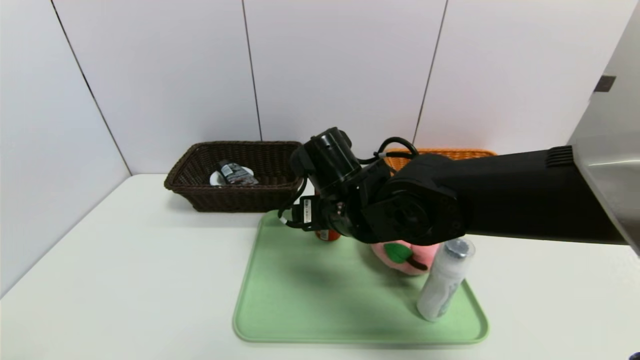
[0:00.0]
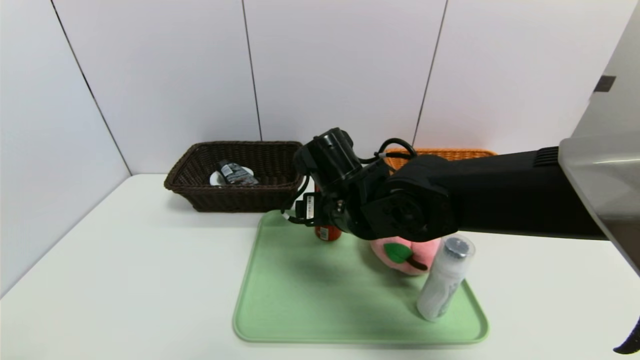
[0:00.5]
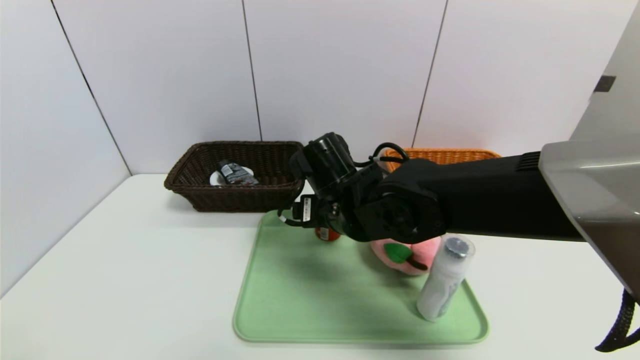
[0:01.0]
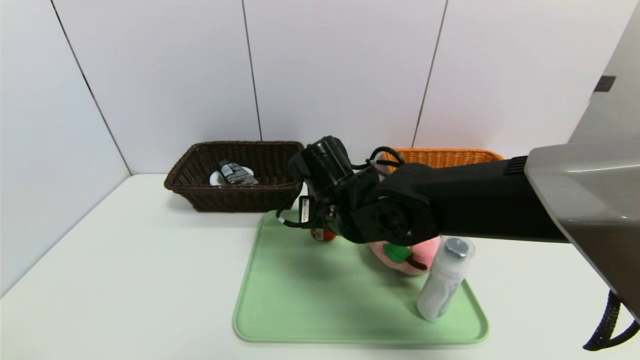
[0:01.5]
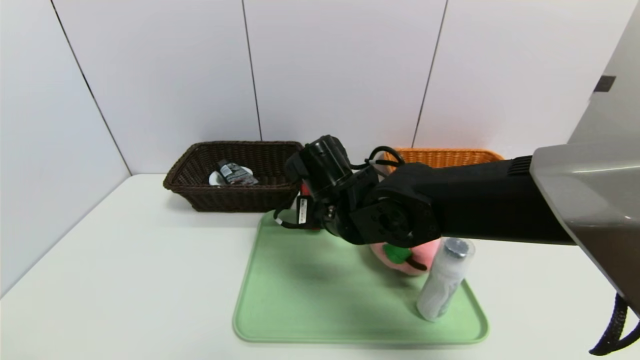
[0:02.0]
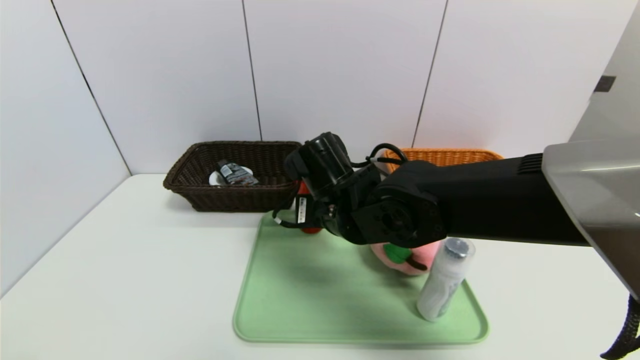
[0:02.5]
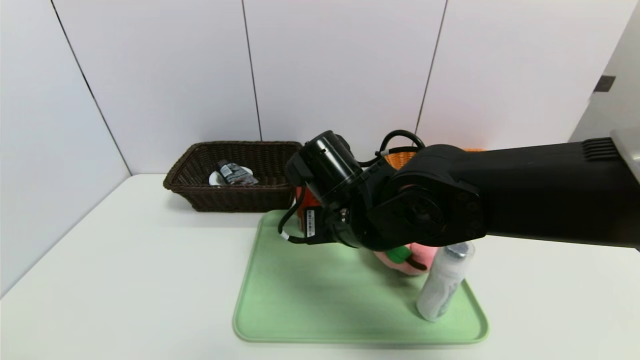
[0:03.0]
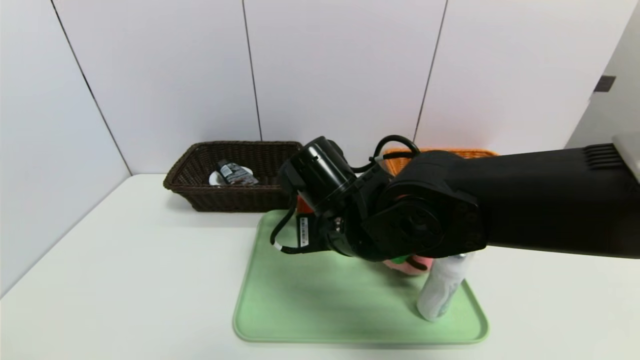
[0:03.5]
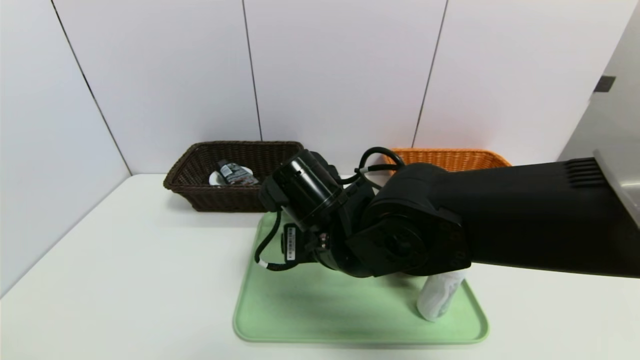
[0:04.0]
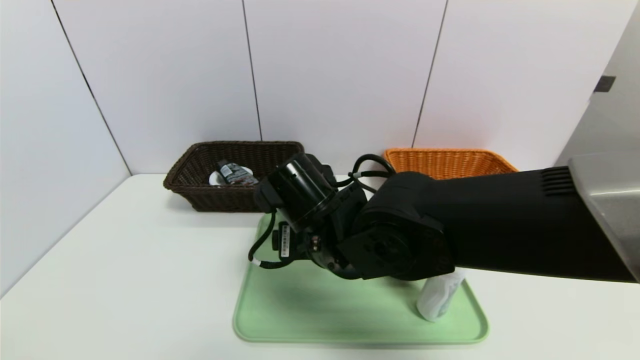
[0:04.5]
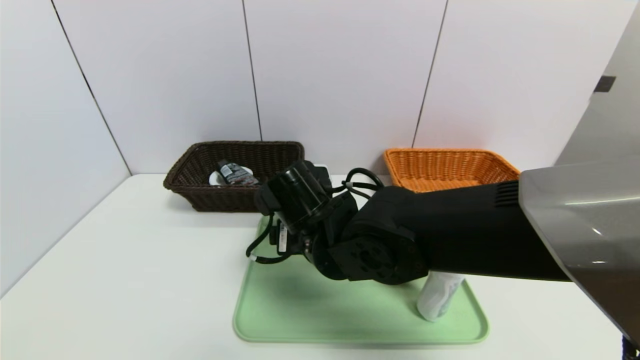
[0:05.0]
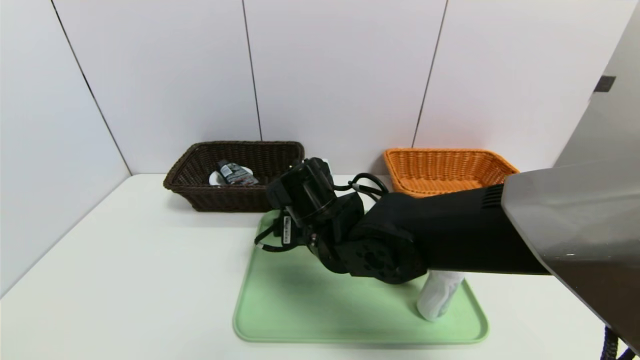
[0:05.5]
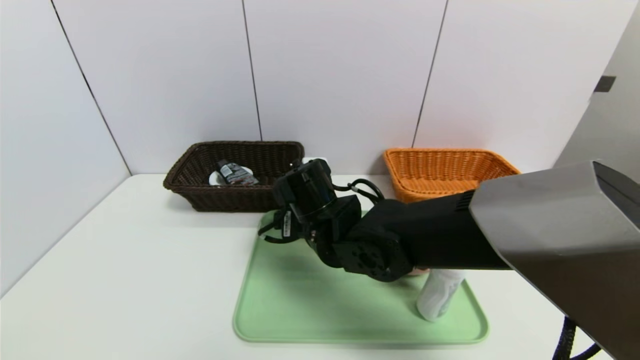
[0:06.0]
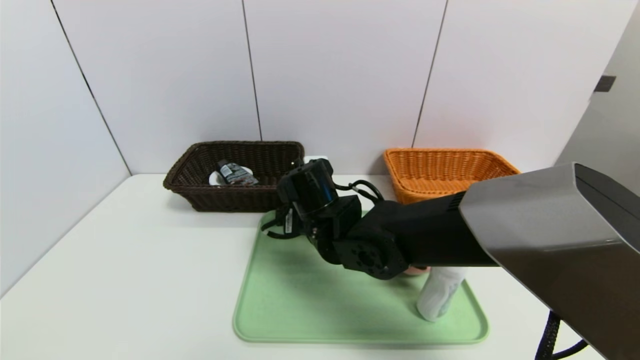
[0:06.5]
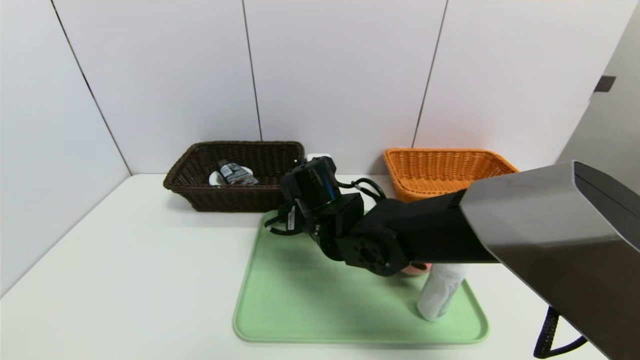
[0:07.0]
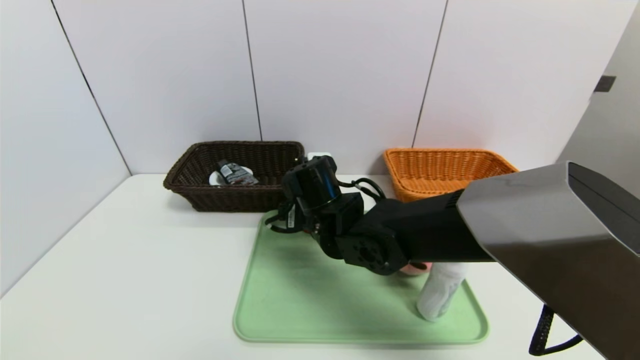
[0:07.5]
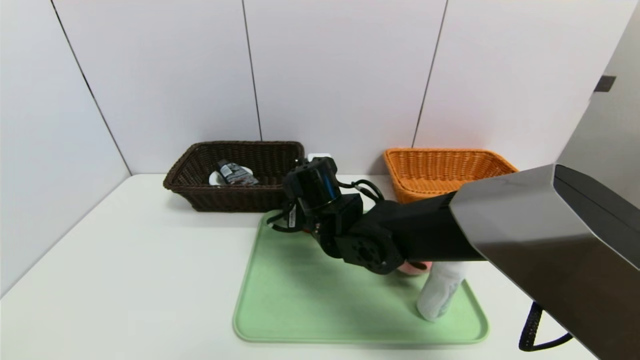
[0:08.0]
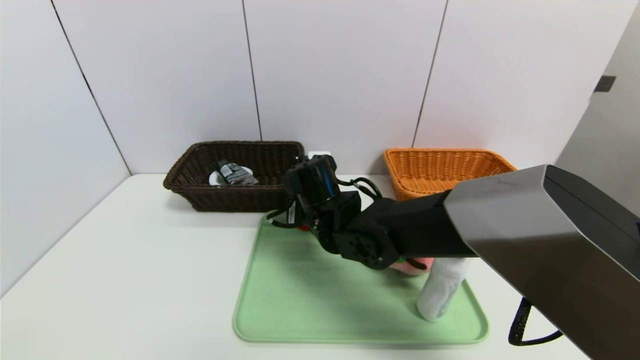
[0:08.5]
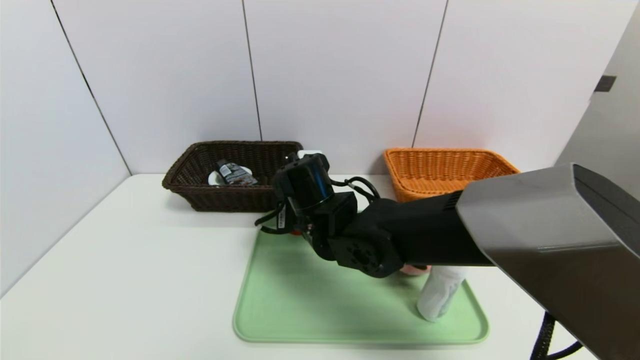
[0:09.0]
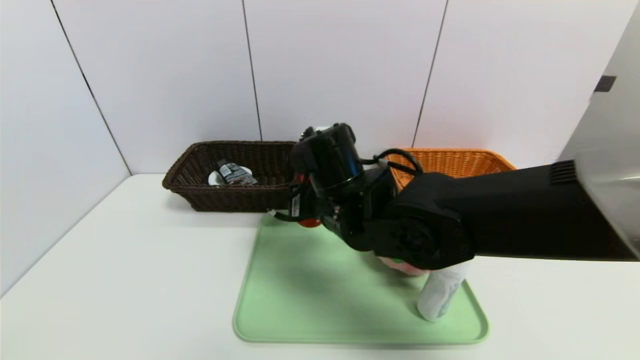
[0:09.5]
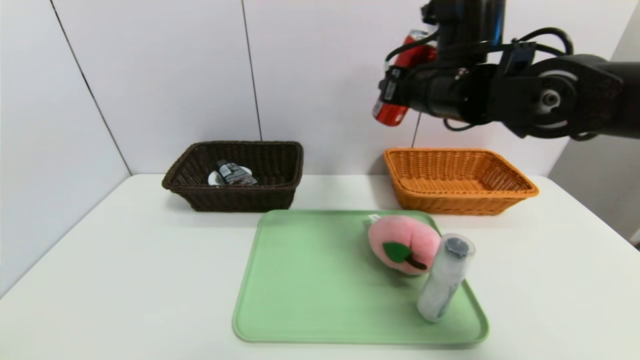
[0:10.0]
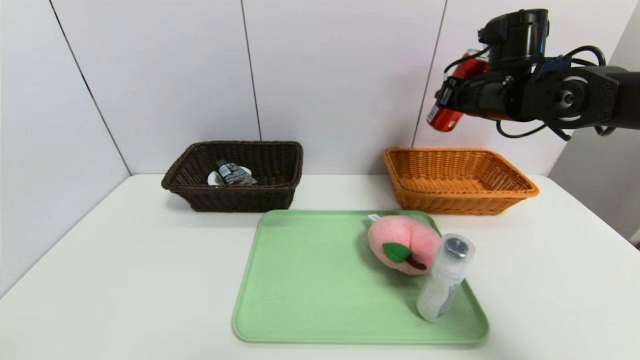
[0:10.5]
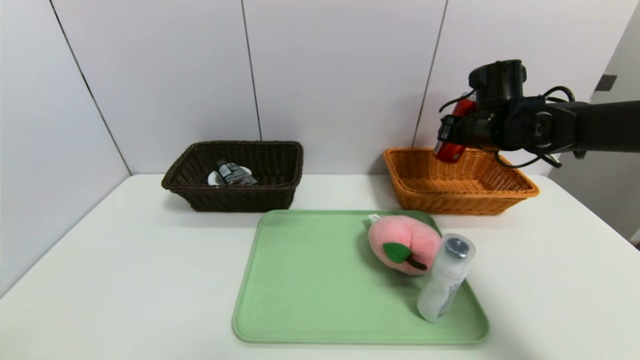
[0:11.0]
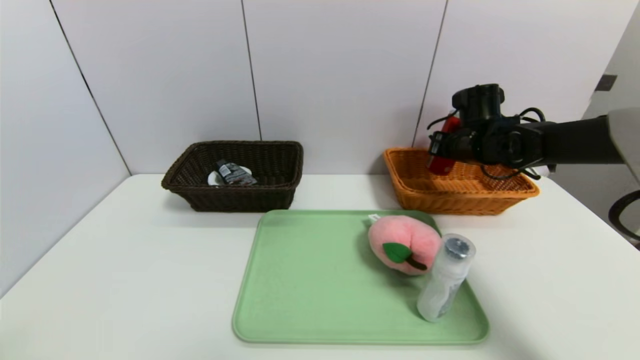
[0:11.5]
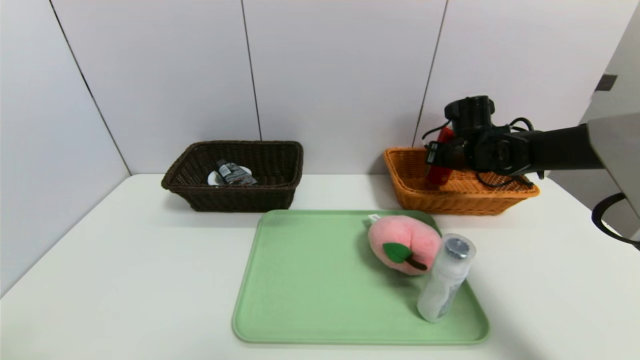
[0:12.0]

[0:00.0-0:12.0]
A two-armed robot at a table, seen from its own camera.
Task of the whole recording: place the food in the right basket with the right gripper, and place the non food items in the left basket with the left gripper.
0:00.0 to 0:02.0: The right gripper closes.
0:02.0 to 0:04.0: The right gripper travels backward by roughly 5 cm, and opens its fingers.
0:04.0 to 0:06.0: The right gripper travels forward by approximately 5 cm.
0:06.0 to 0:08.0: The grippers move only a little.
0:08.0 to 0:10.0: The right gripper travels upward and to the right by some 25 cm, and closes its fingers.
0:10.0 to 0:12.0: The right gripper goes some 20 cm downward, to the right and forward.

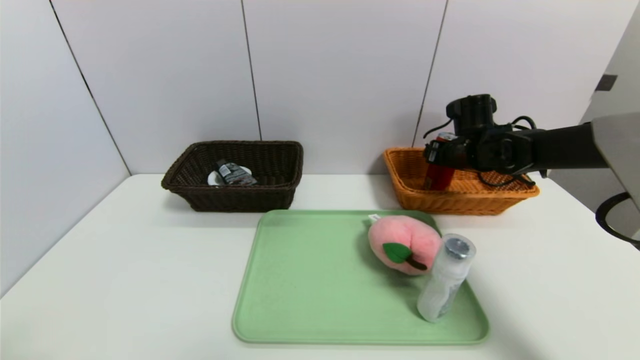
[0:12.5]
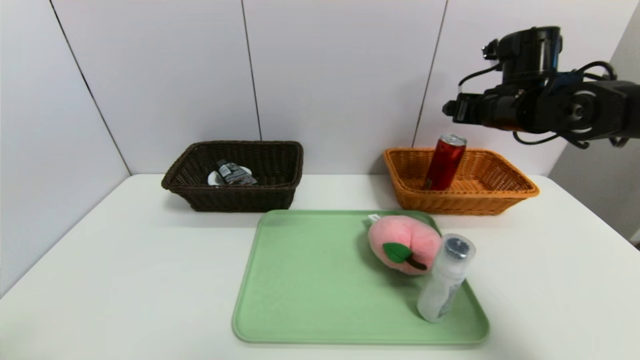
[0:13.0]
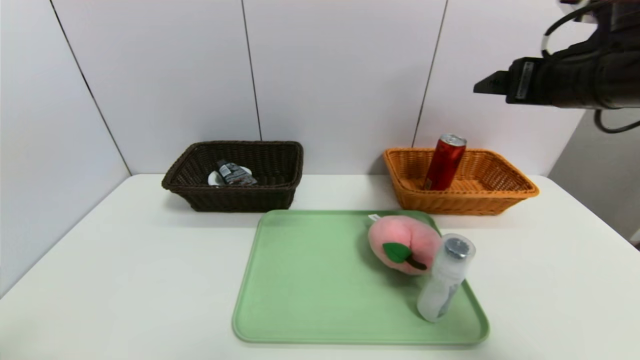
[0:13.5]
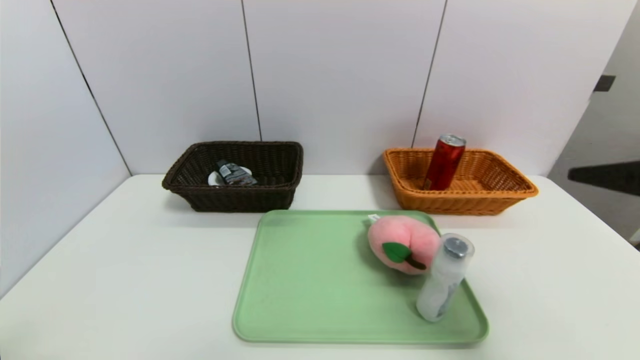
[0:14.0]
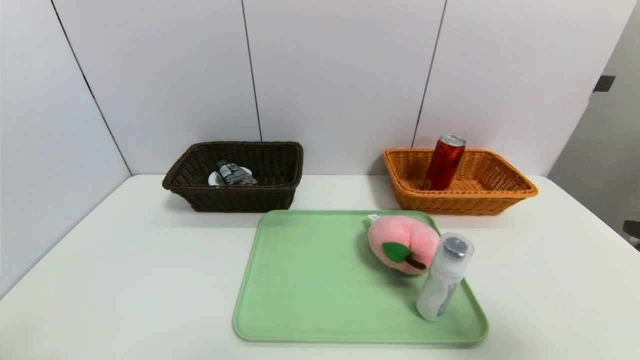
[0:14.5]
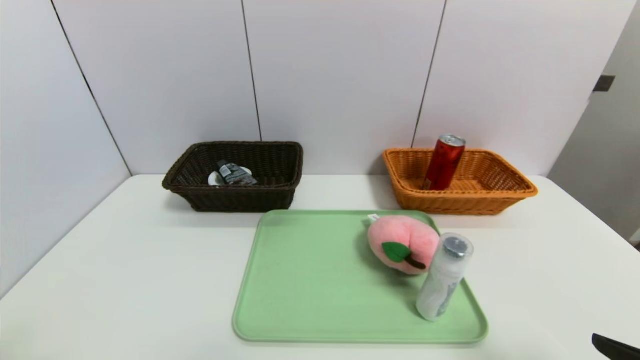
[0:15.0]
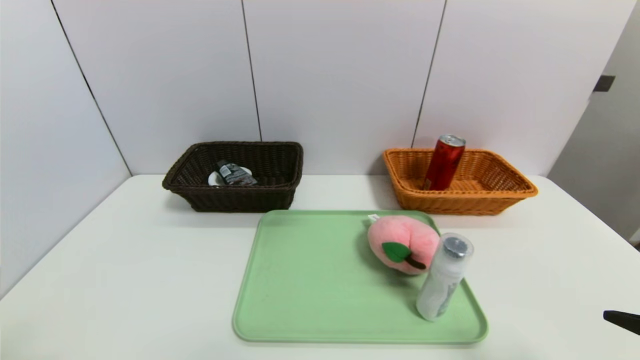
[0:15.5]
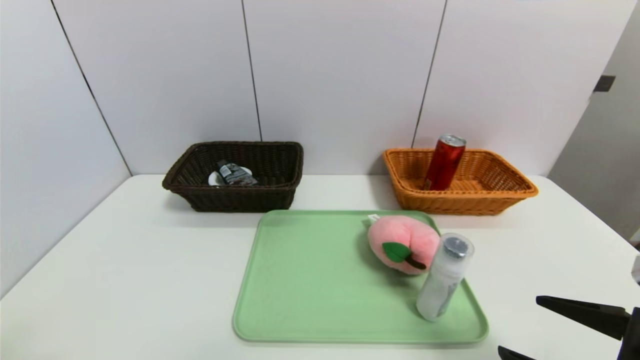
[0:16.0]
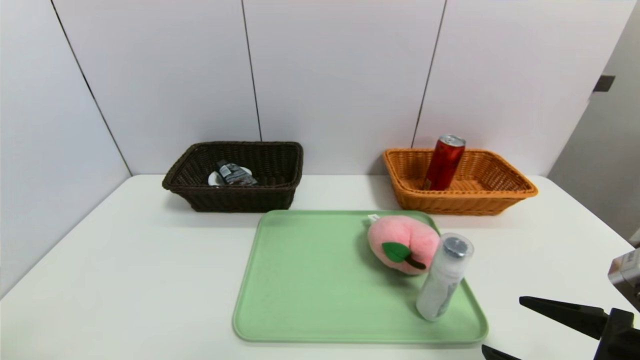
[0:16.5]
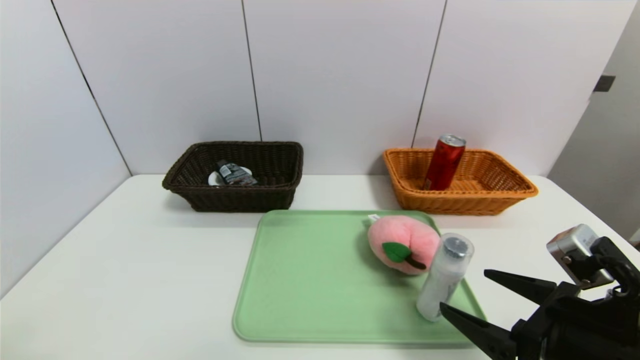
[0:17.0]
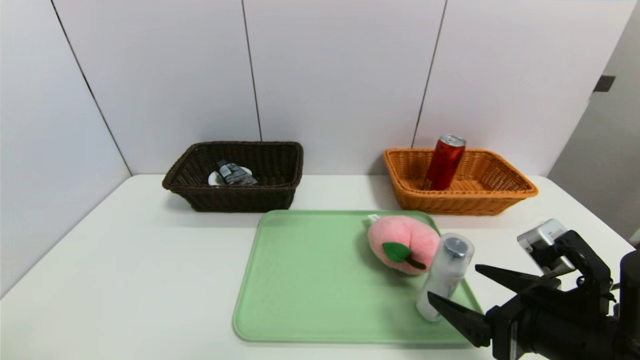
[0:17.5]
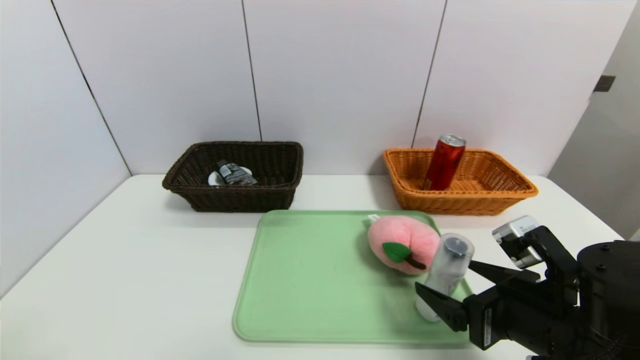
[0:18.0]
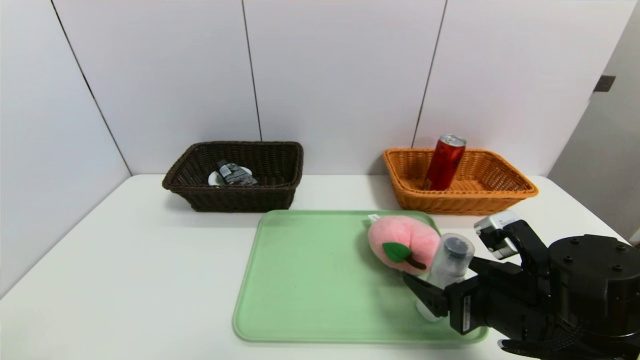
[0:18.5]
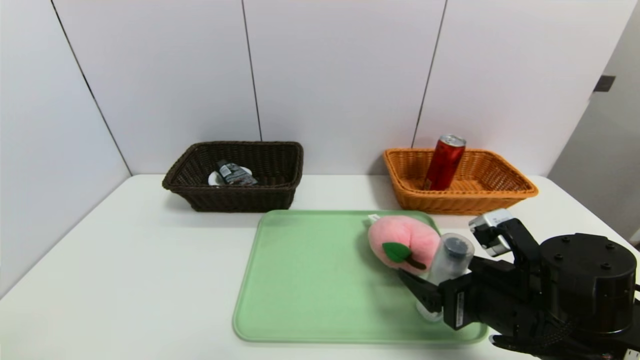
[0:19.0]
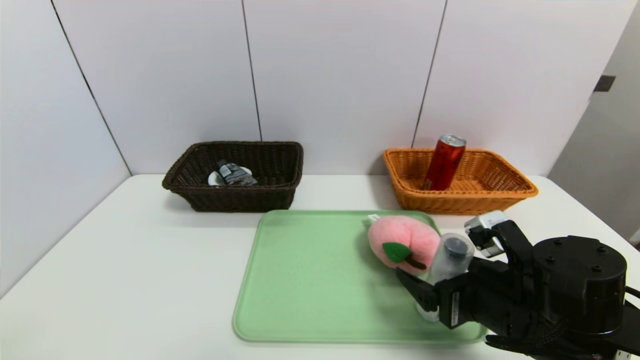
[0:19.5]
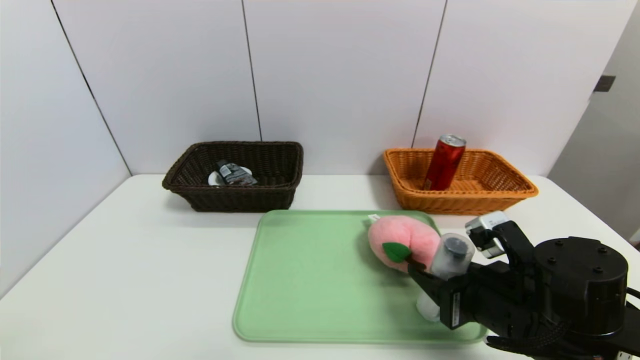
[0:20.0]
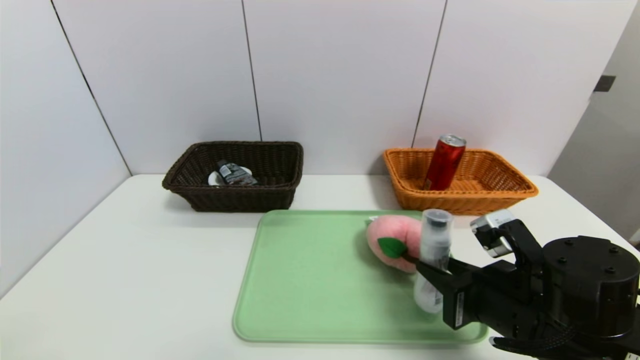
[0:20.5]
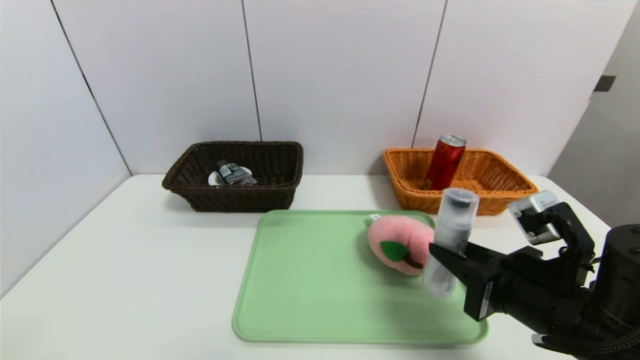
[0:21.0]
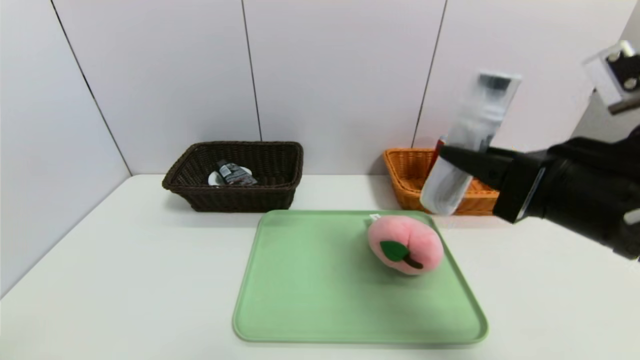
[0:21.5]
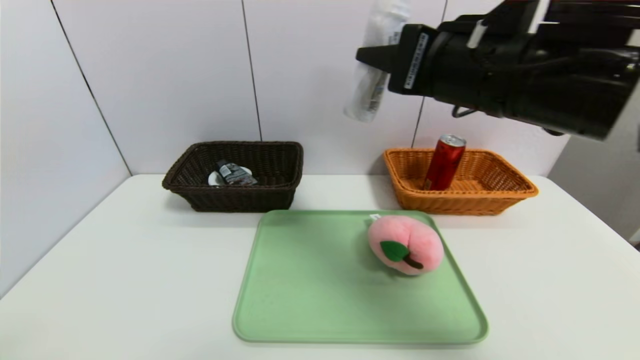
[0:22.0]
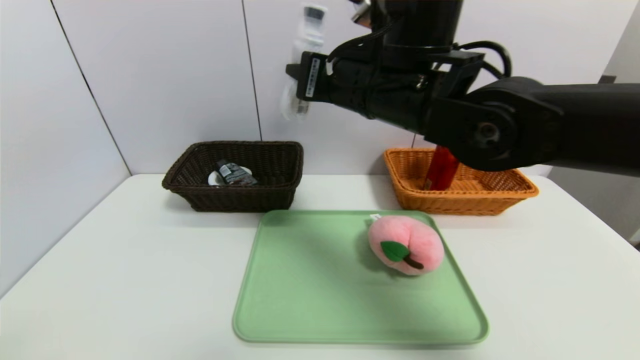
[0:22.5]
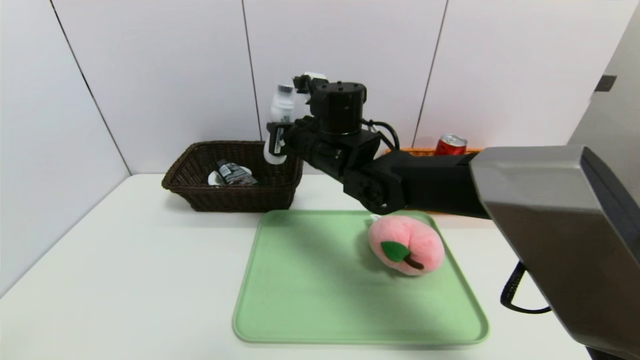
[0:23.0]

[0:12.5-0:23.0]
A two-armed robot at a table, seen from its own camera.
Task of the whole recording: place the food in the right basket with the right gripper, and place the non food items in the left basket with the left gripper.
0:12.5 to 0:14.5: The right gripper shifts some 40 cm backward.
0:14.5 to 0:16.5: The right gripper moves downward, about 10 cm.
0:16.5 to 0:19.0: The right gripper travels forward and to the left by some 10 cm.
0:19.0 to 0:21.0: The right gripper closes its fingers.
0:21.0 to 0:23.0: The right gripper goes approximately 30 cm to the left and forward.
